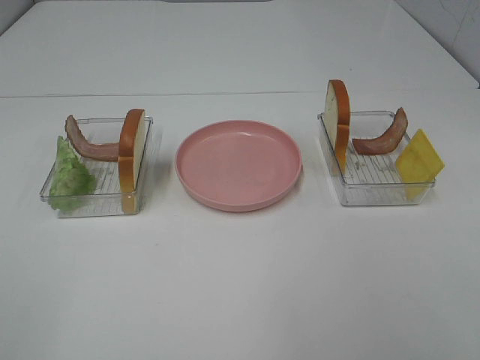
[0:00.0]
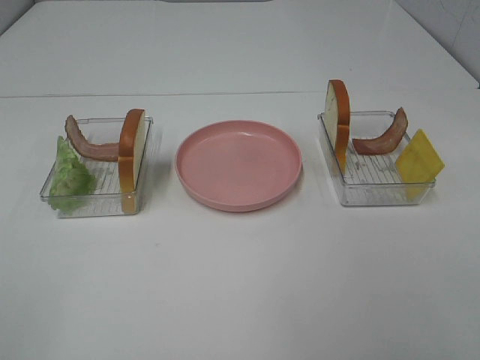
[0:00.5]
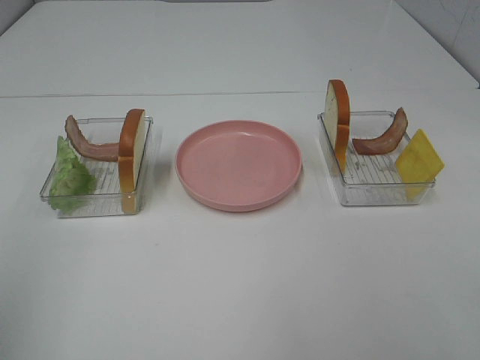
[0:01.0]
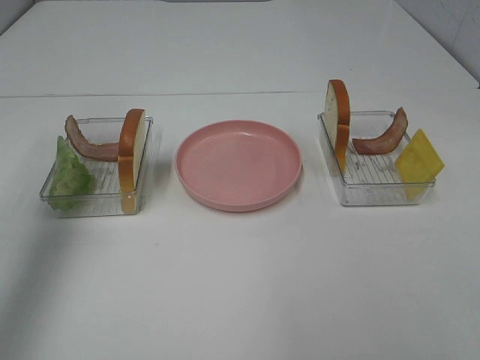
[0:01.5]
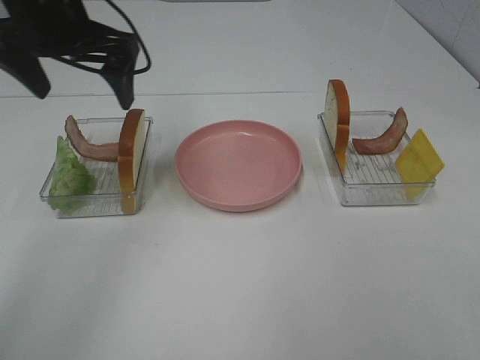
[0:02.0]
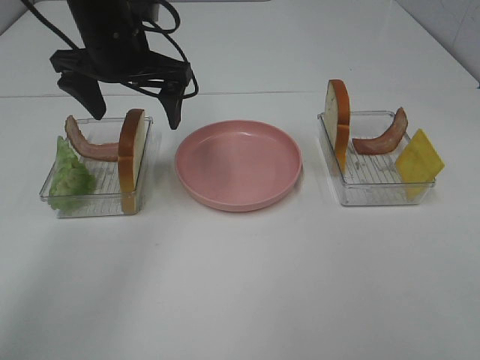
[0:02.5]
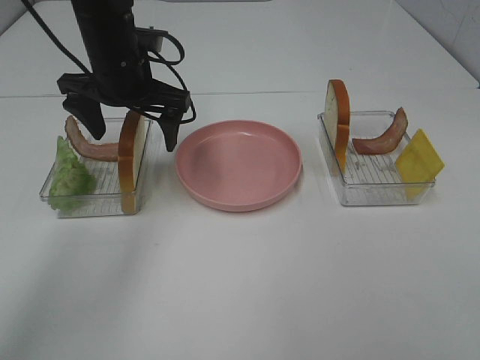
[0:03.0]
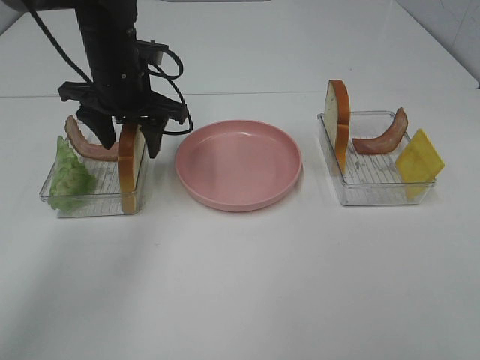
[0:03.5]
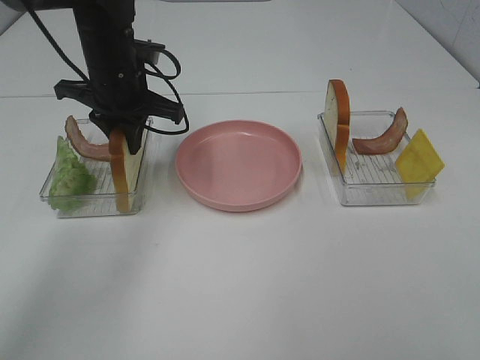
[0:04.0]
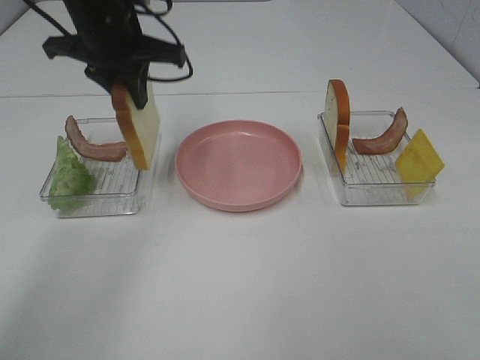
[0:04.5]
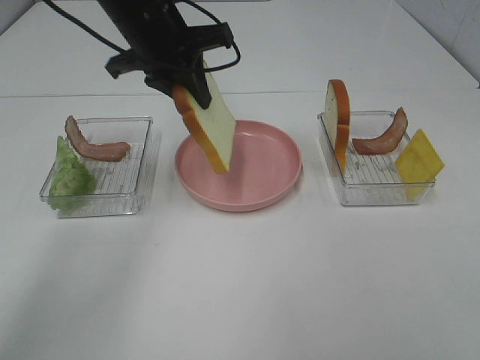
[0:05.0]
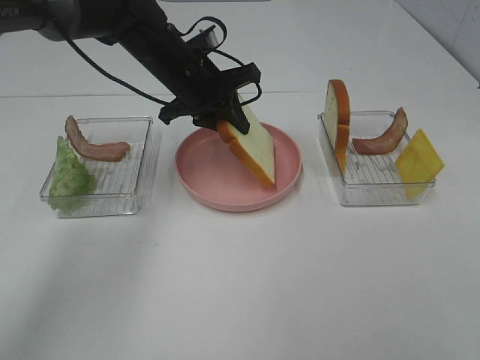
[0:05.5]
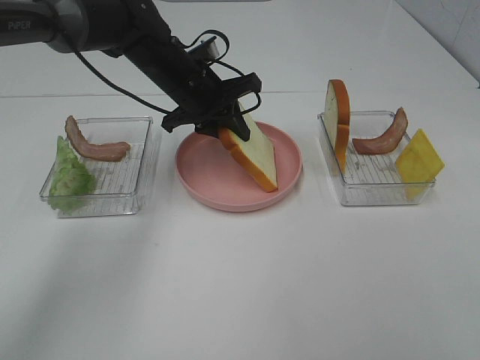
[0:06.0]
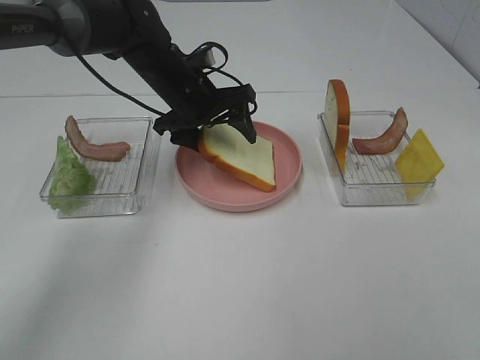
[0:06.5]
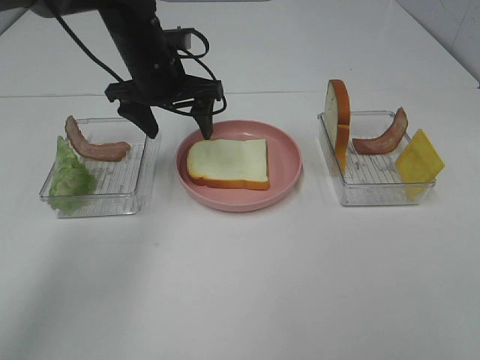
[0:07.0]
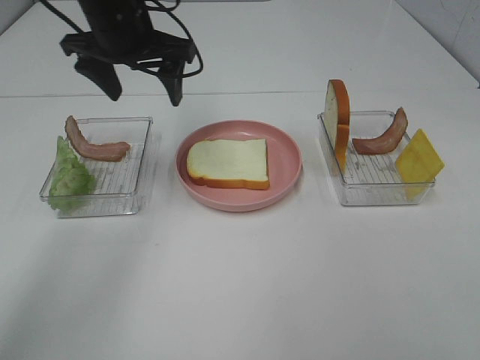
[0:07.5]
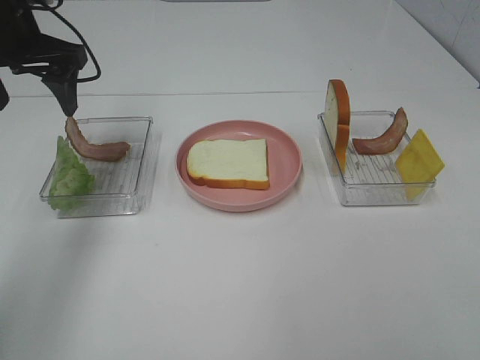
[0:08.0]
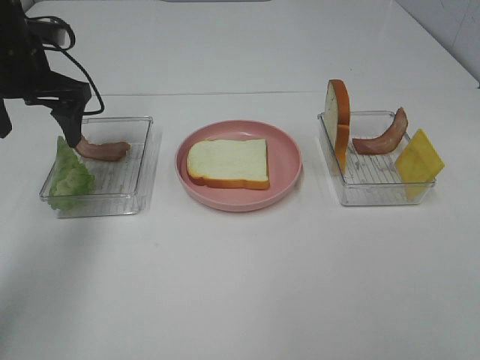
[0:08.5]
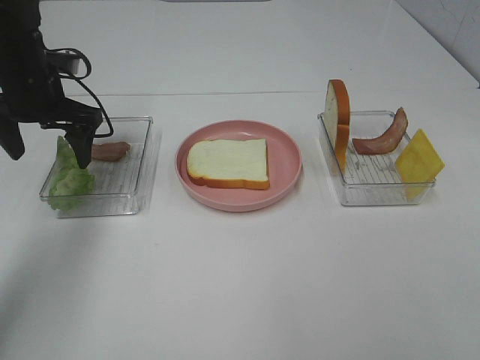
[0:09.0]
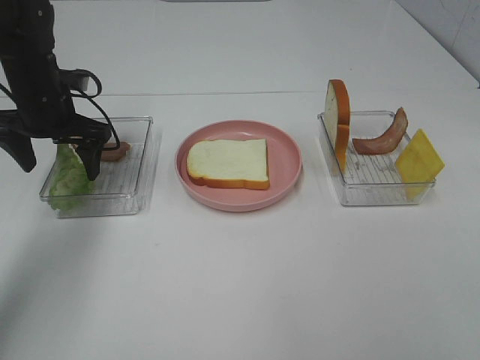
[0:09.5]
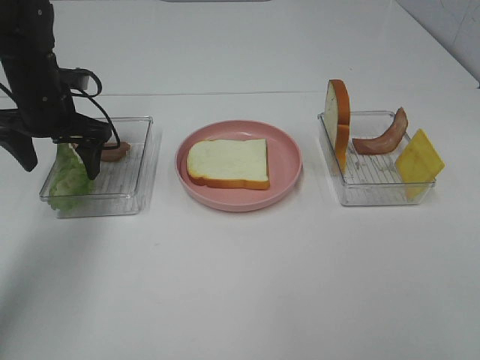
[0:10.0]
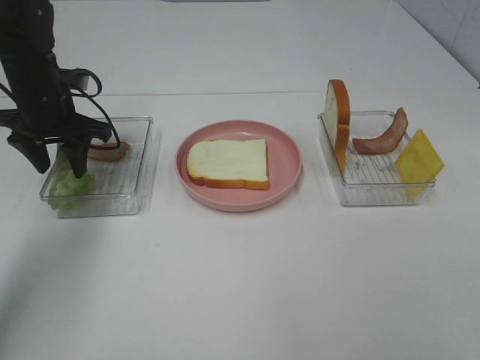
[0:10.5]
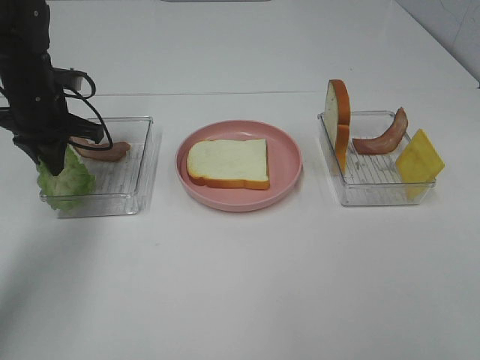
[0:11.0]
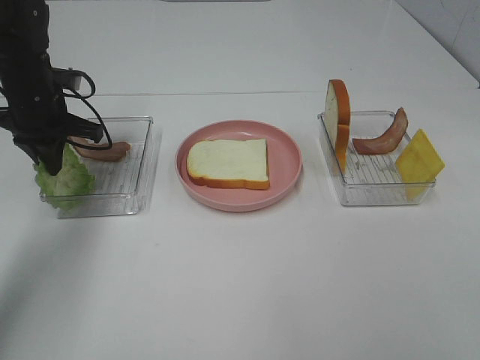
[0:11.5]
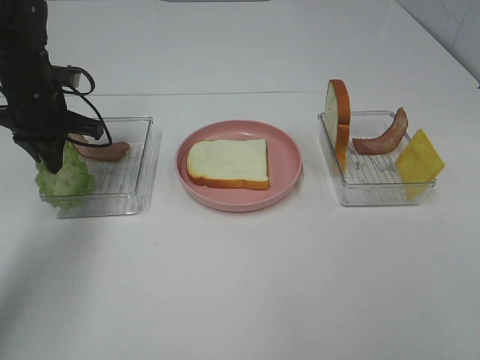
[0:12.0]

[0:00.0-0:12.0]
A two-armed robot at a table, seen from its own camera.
Task of the whole recording: Make sandwiches.
Step, 0:00.0 to 0:03.5: Left hand:grab the bread slice.
Step, 0:04.0 to 0:07.0: Left hand:place the bread slice on the plate.
Step, 0:07.5 to 0:11.0: Left hand:grab the lettuce slice.
0:00.0 to 0:02.0: The left gripper heads forward, covering some 40 cm.
0:02.0 to 0:04.0: The left gripper moves downward, about 10 cm, and closes its fingers.
0:04.0 to 0:06.0: The left gripper is displaced to the right by about 5 cm, and reaches approximately 10 cm upward, then returns.
0:06.0 to 0:08.0: The left gripper travels to the left and upward by roughly 20 cm, and opens.
0:08.0 to 0:10.0: The left gripper is displaced downward by roughly 10 cm.
0:10.0 to 0:12.0: The left gripper closes.

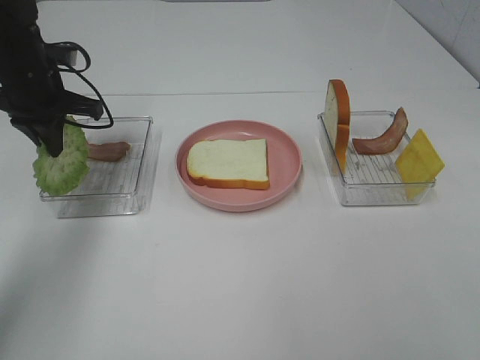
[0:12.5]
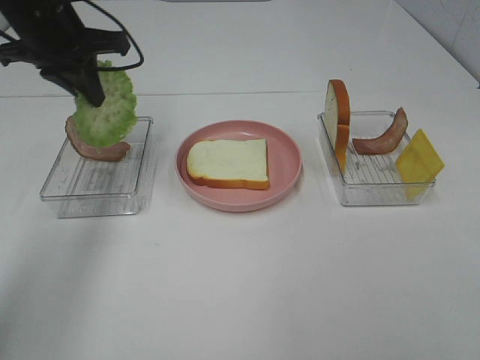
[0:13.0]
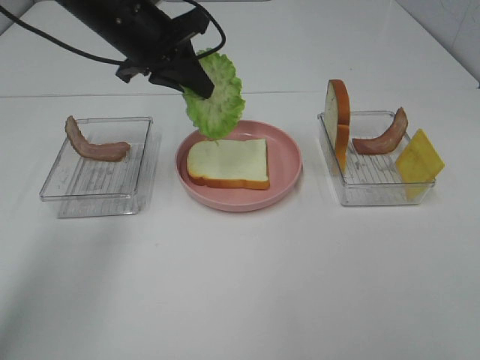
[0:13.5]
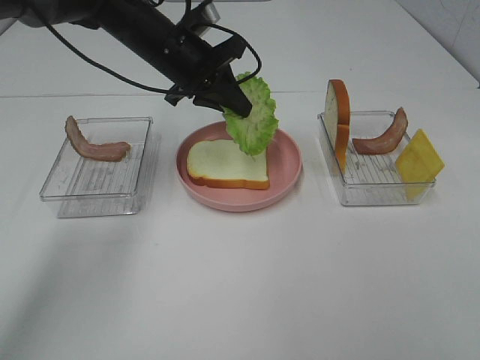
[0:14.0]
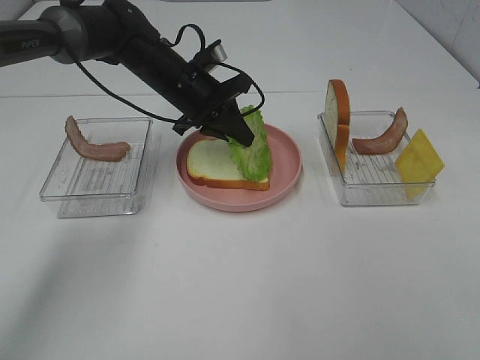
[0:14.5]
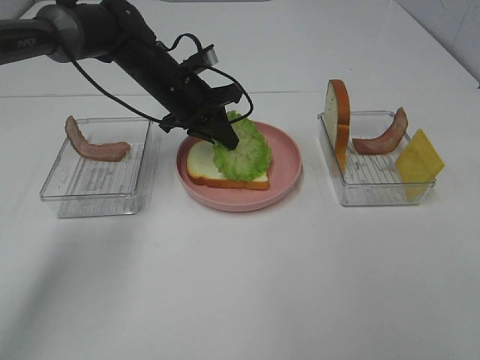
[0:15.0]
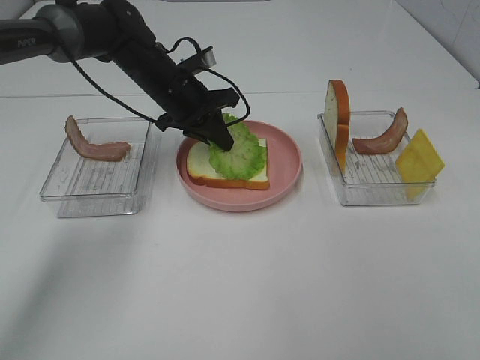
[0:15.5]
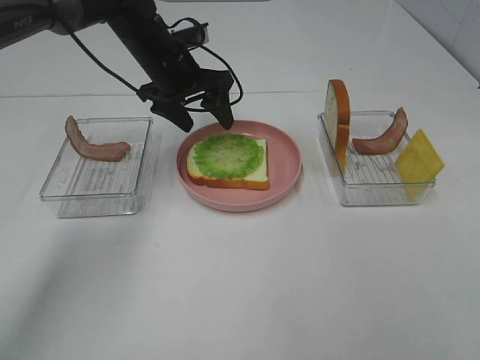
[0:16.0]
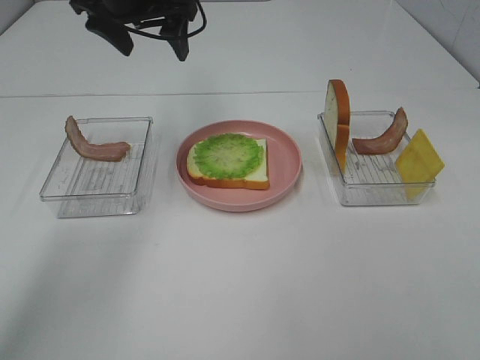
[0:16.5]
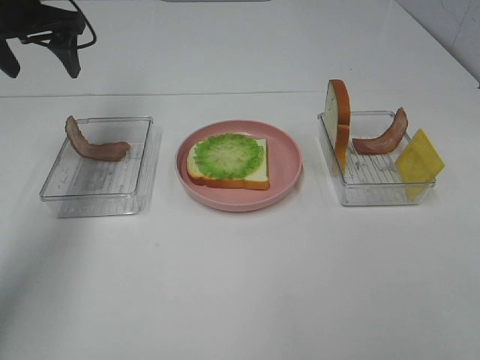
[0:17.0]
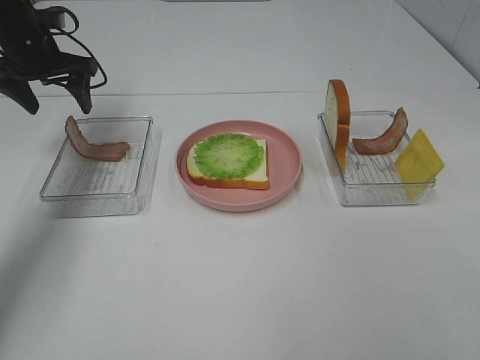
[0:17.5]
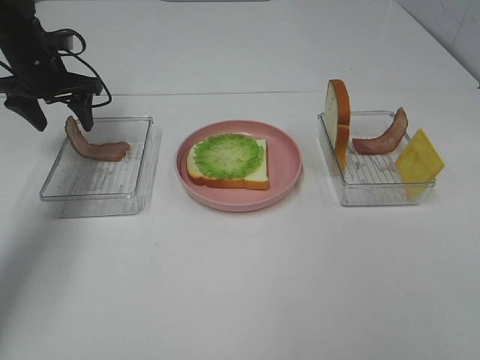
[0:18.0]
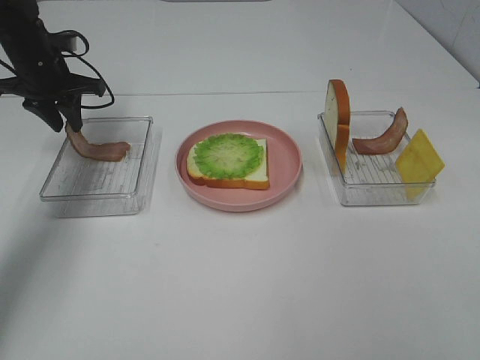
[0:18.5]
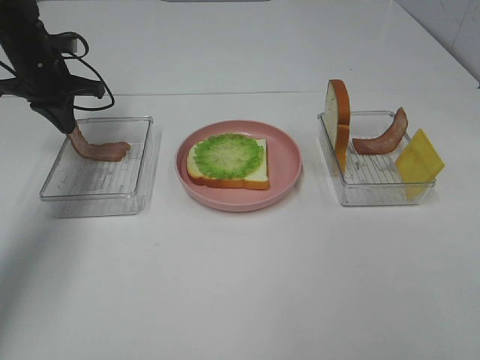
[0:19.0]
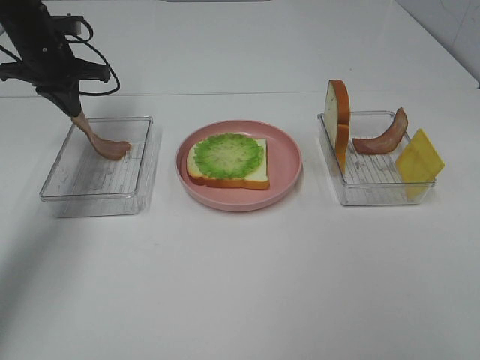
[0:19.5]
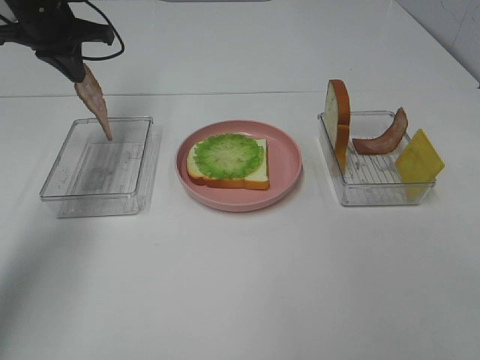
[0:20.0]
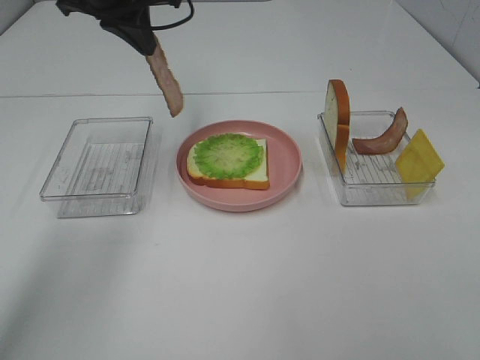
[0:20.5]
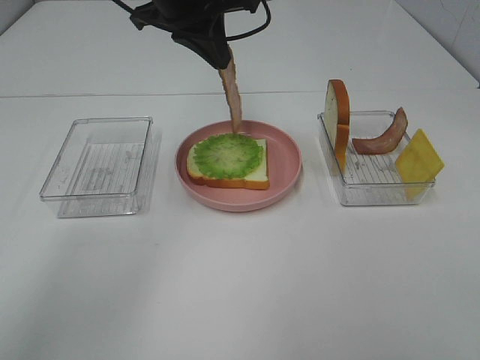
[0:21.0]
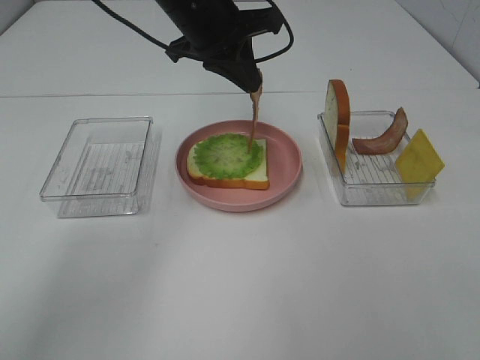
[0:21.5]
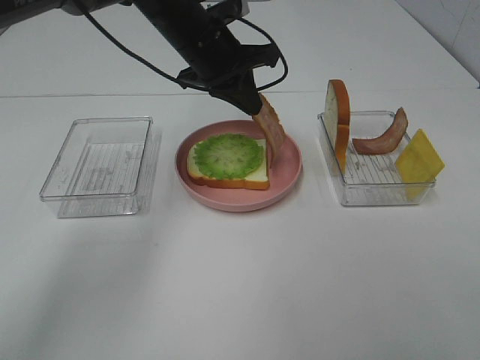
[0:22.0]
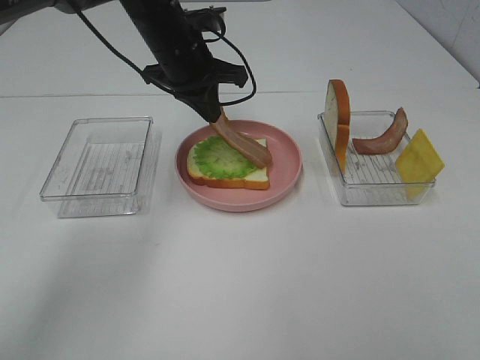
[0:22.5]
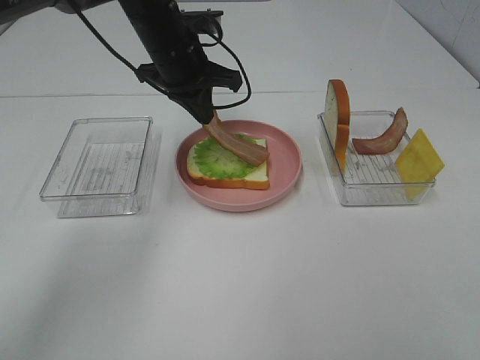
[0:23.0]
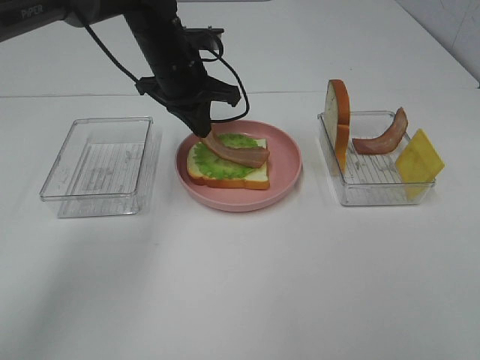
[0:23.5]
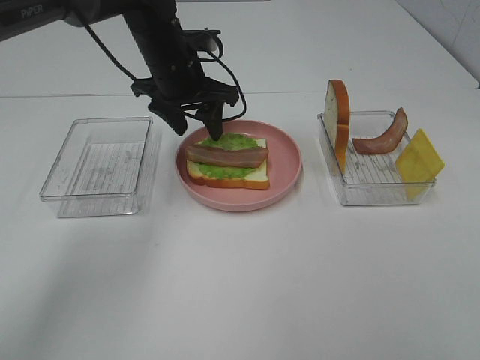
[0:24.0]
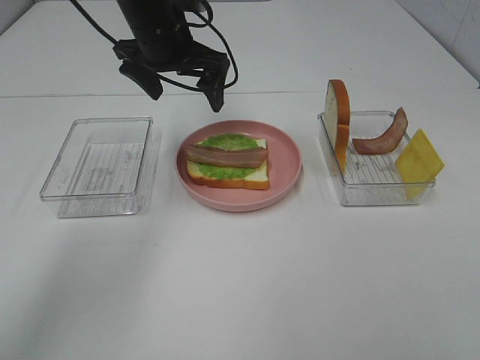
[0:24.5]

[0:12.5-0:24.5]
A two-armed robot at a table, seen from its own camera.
Task of the whole recording: Make sandwiches.
Step, 0:12.5 to 0:16.0: Left hand:place the lettuce slice on the bread slice.
Step, 0:16.5 to 0:19.5: Left hand:grab the bacon.
Step, 0:20.0 to 0:24.0: Left hand:place bacon on lettuce slice.
0:12.5 to 0:14.5: The left gripper heads to the right, covering approximately 15 cm.
0:14.5 to 0:16.5: The left gripper travels upward and to the left by some 15 cm, and opens.
0:16.5 to 0:18.5: The left gripper travels to the left and downward by about 20 cm, and closes up.
0:18.5 to 0:20.5: The left gripper shifts approximately 20 cm to the right and upward.
0:20.5 to 0:22.5: The left gripper heads downward and to the right, covering roughly 10 cm.
0:22.5 to 0:24.5: The left gripper opens up.

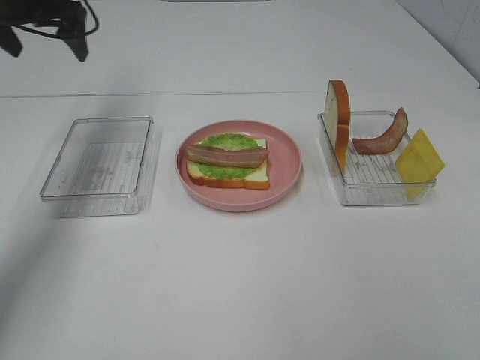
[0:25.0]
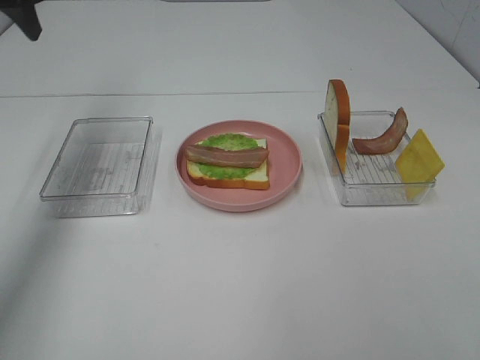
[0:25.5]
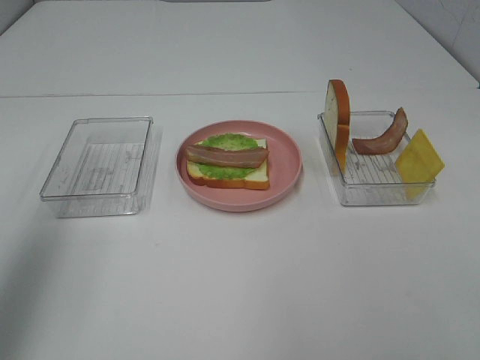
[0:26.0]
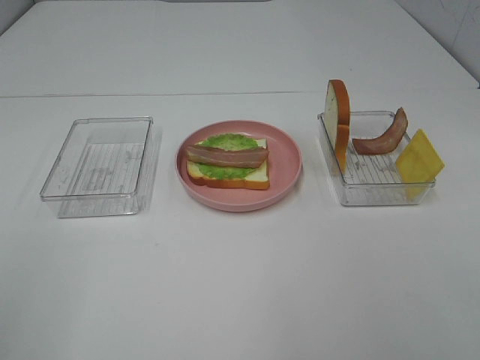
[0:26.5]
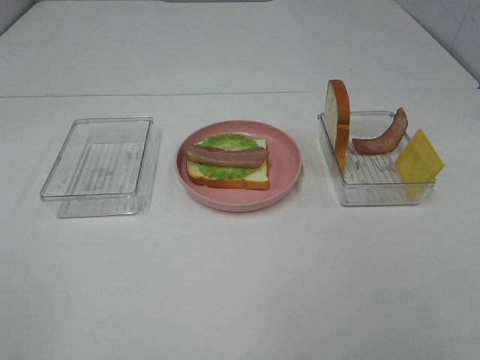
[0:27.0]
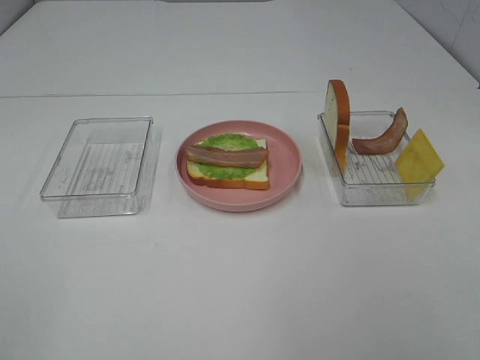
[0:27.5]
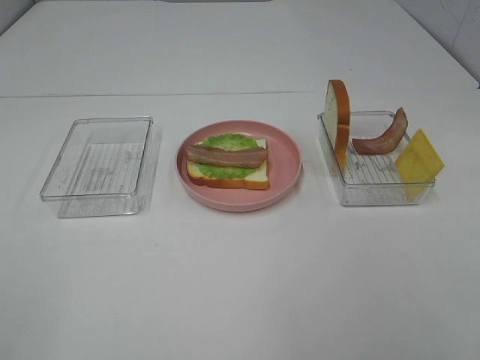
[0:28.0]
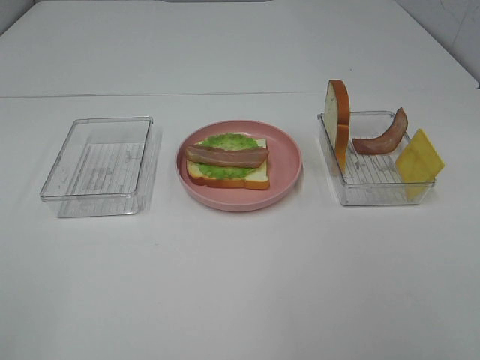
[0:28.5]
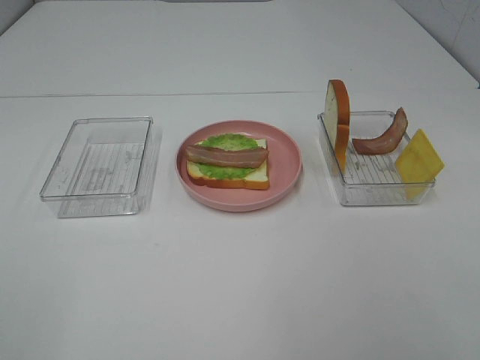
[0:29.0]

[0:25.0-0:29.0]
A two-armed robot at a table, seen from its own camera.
Task of the whole recording: Make sandwiches.
0:25.0 to 0:27.0: The left gripper travels backward by about 50 cm.
